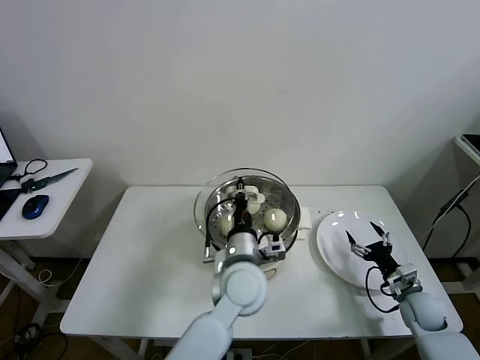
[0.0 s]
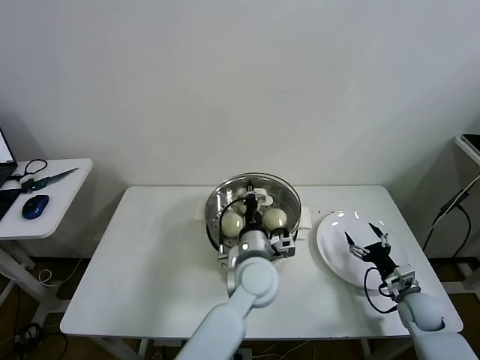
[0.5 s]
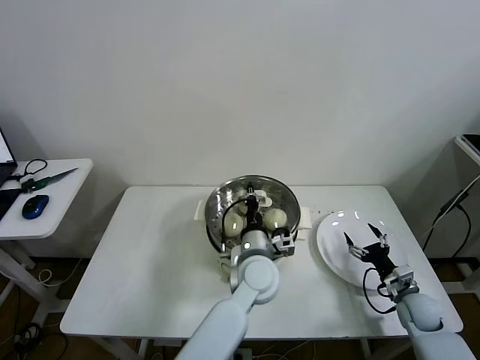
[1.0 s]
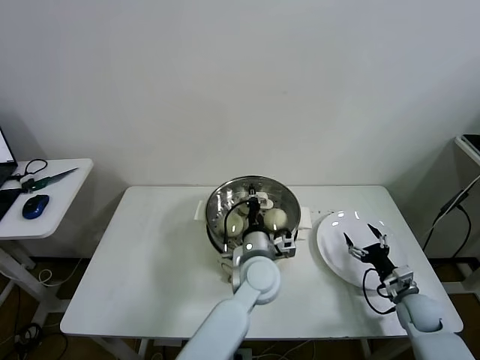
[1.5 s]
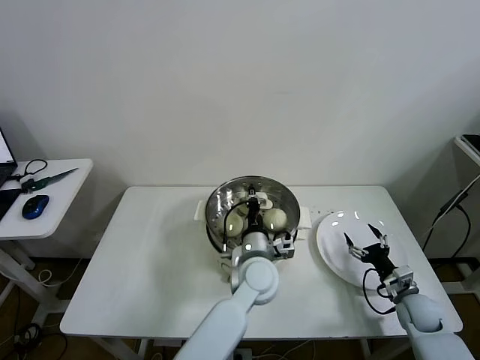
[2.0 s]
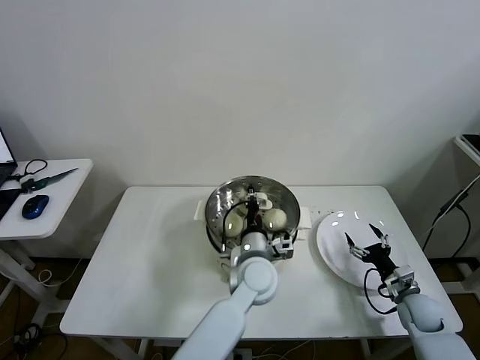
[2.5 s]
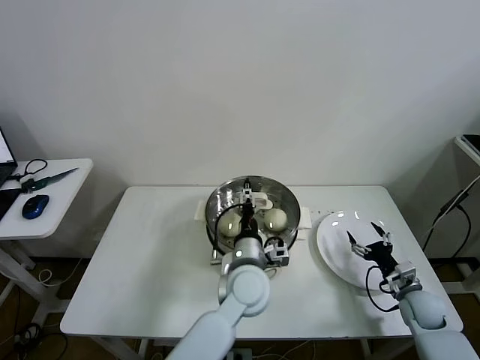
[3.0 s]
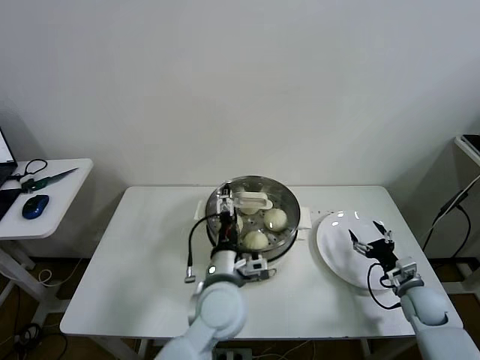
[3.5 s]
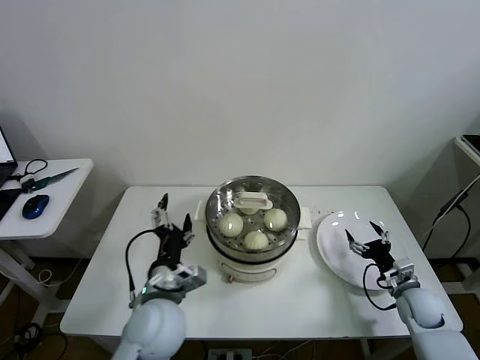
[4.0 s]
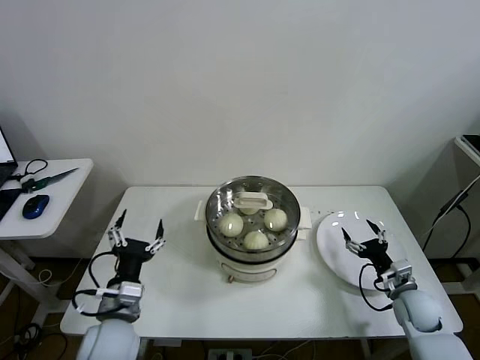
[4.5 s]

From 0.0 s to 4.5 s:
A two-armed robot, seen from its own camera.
Task of the whole recording: take steamed baozi put them in steamer then cover it.
Step, from 0.0 s to 2.5 s: Place the pot lid on the steamer with left gripper.
From 0.0 s to 2.0 s: The left gripper travels downward by roughly 5 cm.
From 2.0 s to 4.5 s: The left gripper is displaced to the left and backward by approximately 30 cm, and opens.
